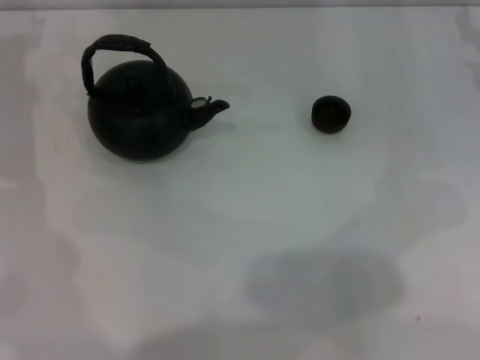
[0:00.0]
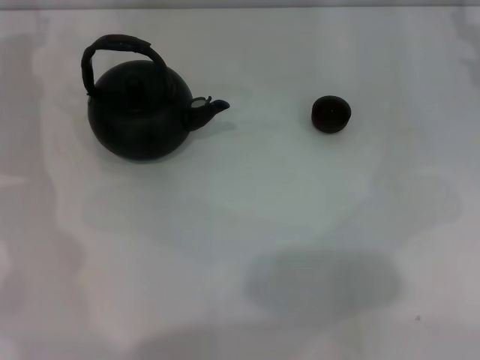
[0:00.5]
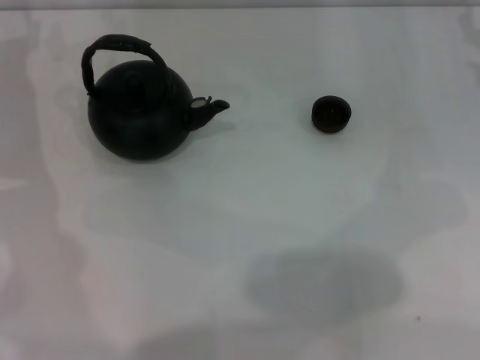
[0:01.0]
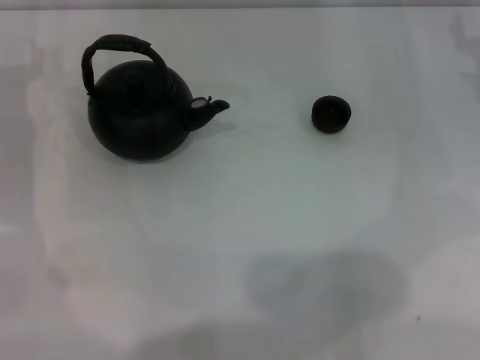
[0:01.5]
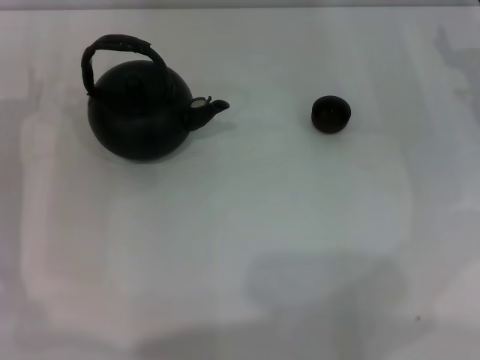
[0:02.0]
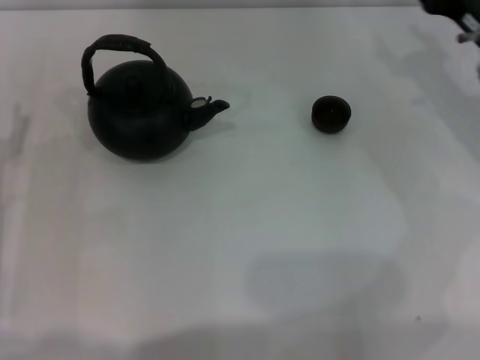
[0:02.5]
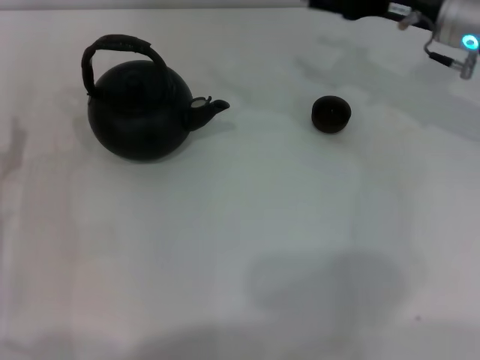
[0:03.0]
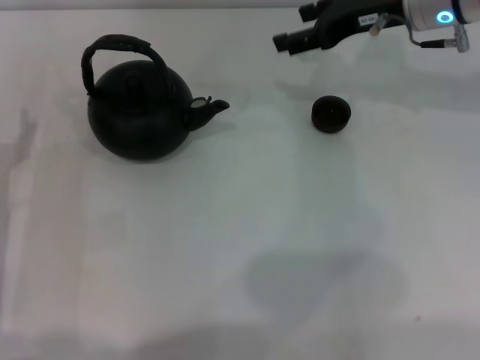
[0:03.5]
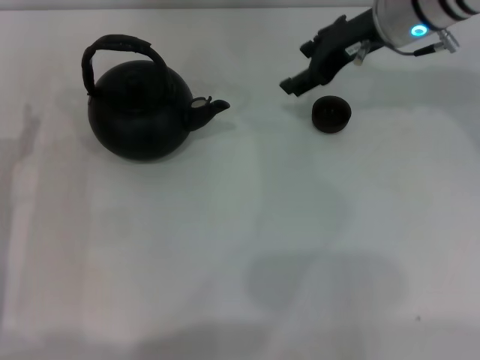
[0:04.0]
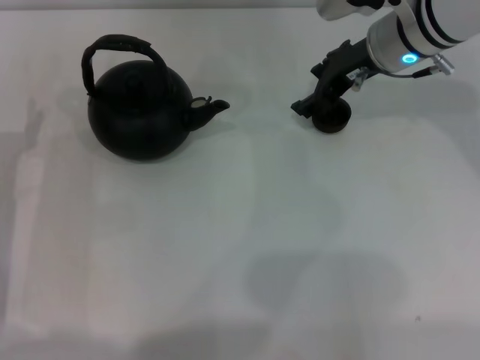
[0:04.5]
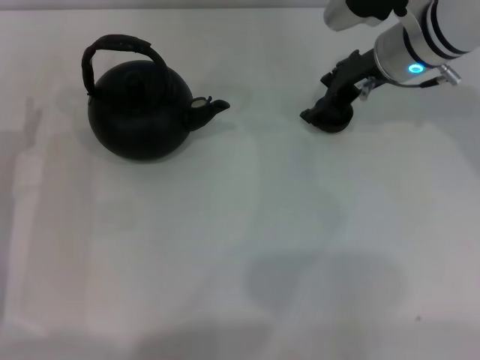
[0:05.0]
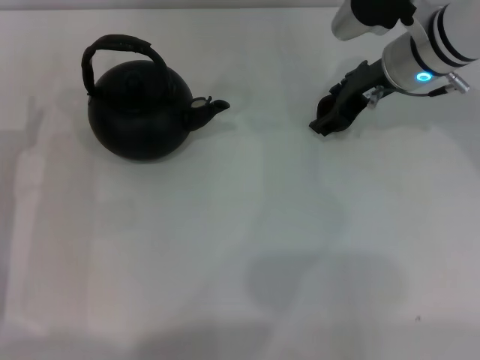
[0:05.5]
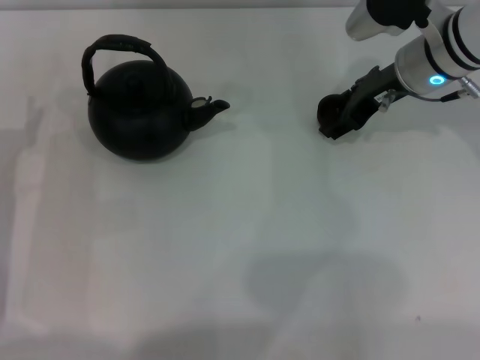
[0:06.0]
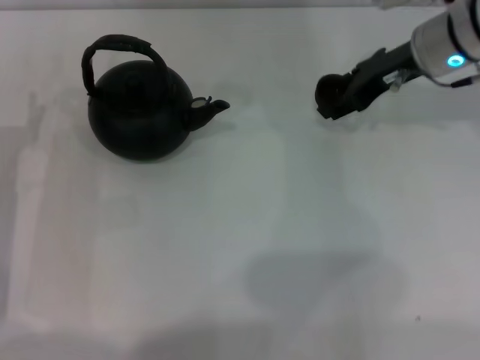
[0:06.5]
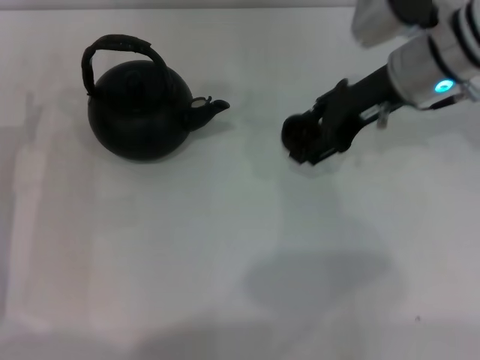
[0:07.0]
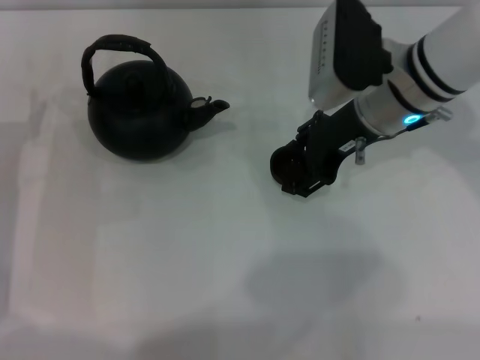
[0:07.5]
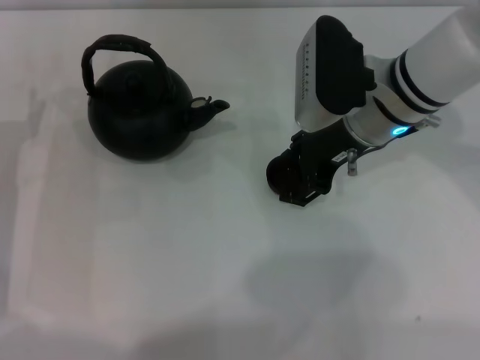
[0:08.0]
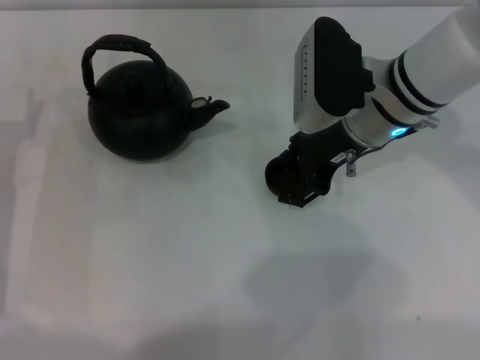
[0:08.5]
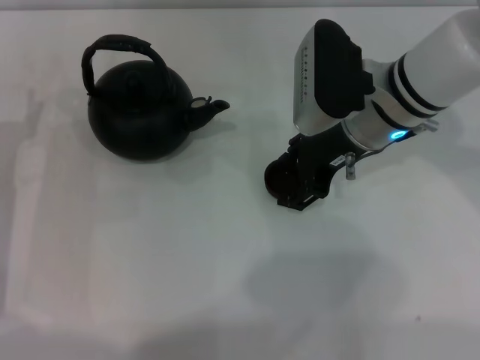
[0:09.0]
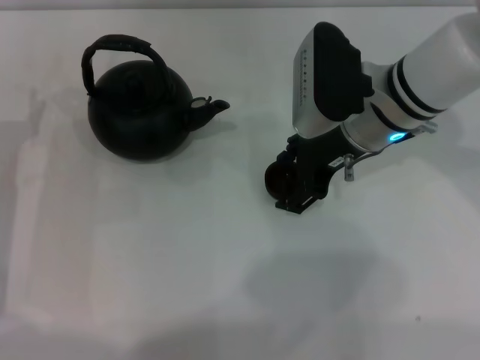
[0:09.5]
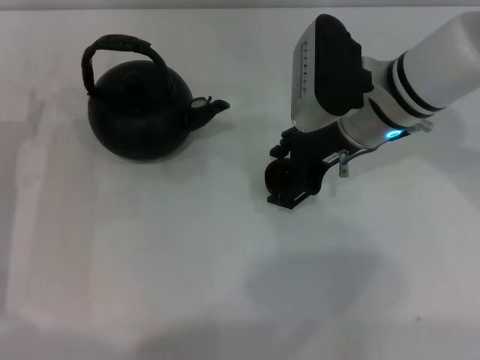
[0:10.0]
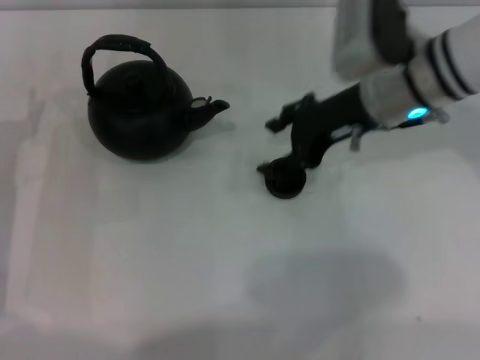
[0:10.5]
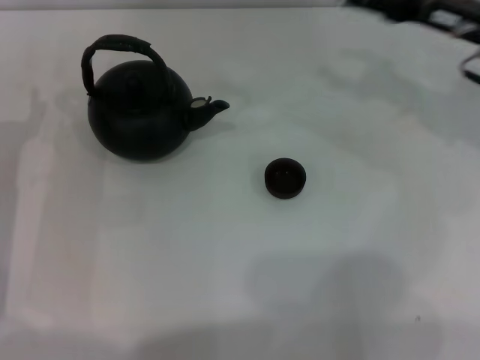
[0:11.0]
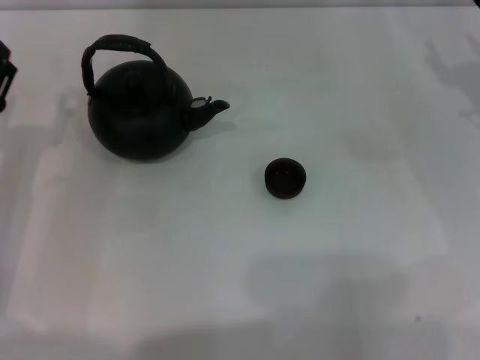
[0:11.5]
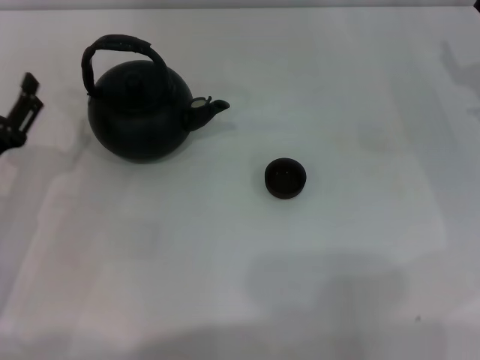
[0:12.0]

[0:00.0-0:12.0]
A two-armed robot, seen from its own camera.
Task of the whole recording: Grasp the handle of the teapot with one hand and pour tea into the teacup.
Step, 0:00.0 to 0:06.0: Pick up the teacup with the right gripper.
Step, 0:06.5 to 0:10.5: Place the teacup in the center of view with the right gripper.
0:02.0 to 0:04.0: The left gripper heads backward, covering roughly 5 cm; the right gripper shifts approximately 20 cm to the left, upward and forward.
0:04.0 to 0:06.0: The right gripper changes place by roughly 5 cm, and closes up.
0:06.0 to 0:08.0: The right gripper shifts some 10 cm to the left and backward.
0:08.0 to 0:10.0: The right gripper opens its fingers.
0:10.0 to 0:12.0: The right gripper travels to the right by about 20 cm.

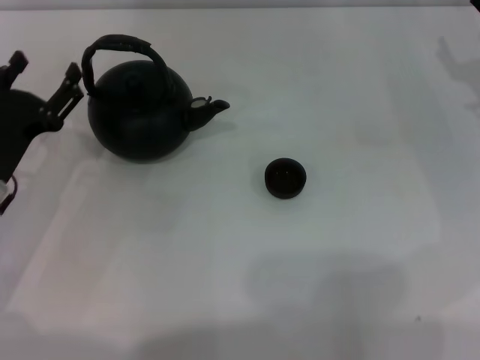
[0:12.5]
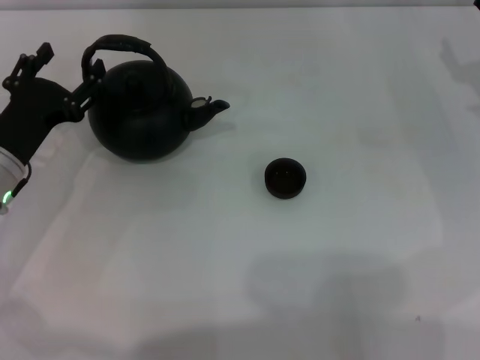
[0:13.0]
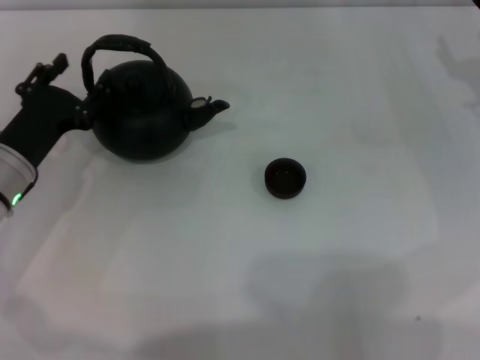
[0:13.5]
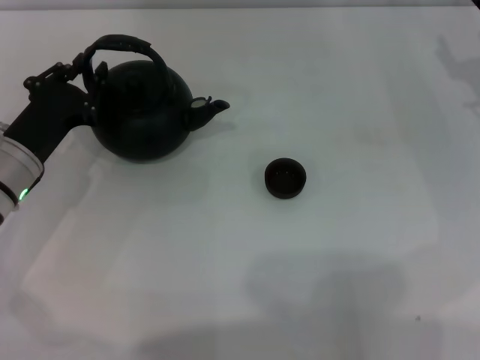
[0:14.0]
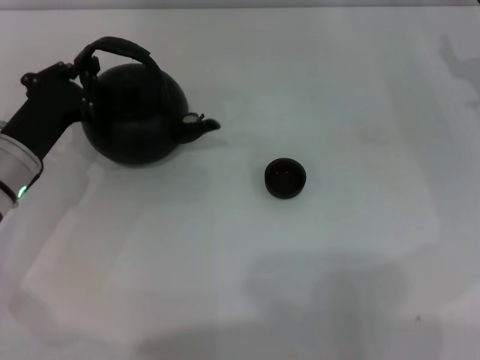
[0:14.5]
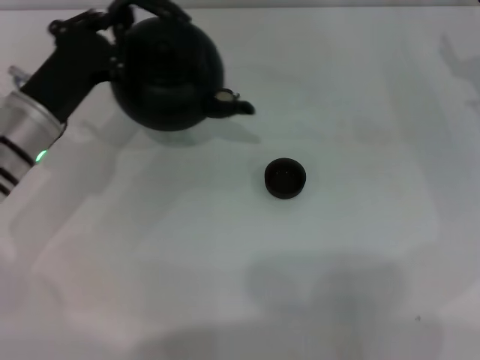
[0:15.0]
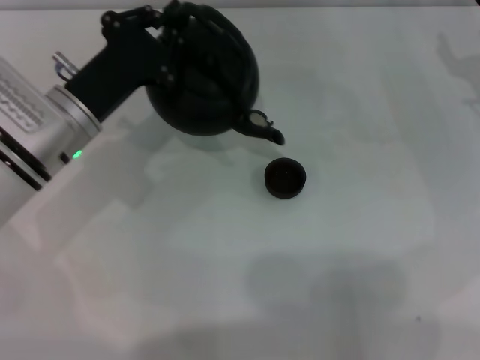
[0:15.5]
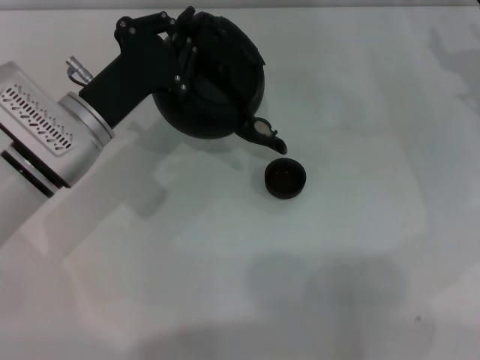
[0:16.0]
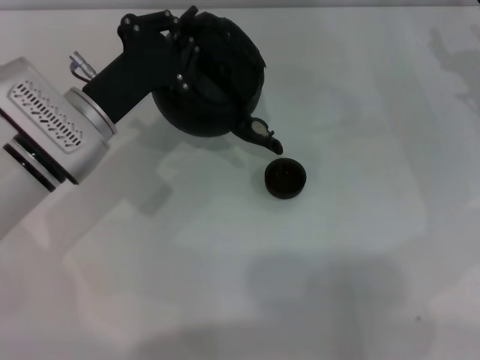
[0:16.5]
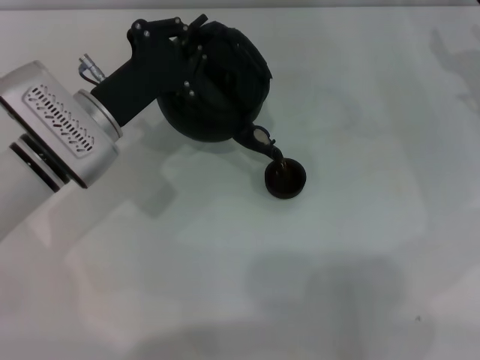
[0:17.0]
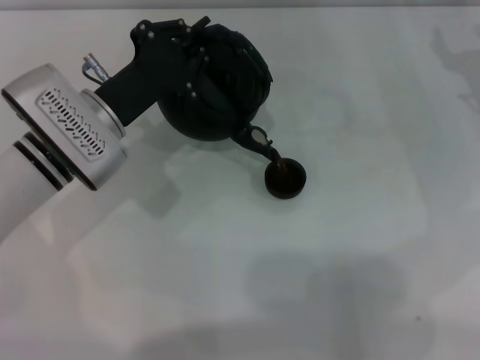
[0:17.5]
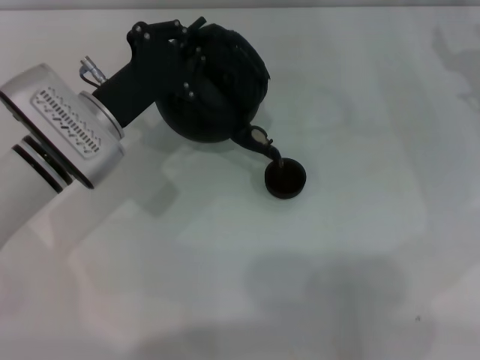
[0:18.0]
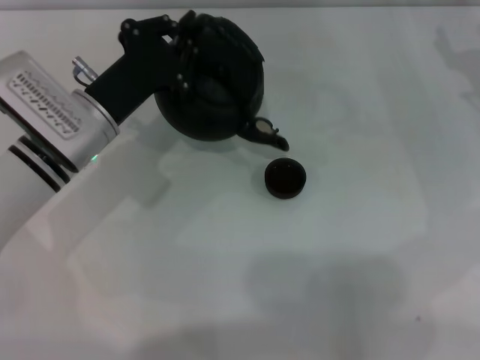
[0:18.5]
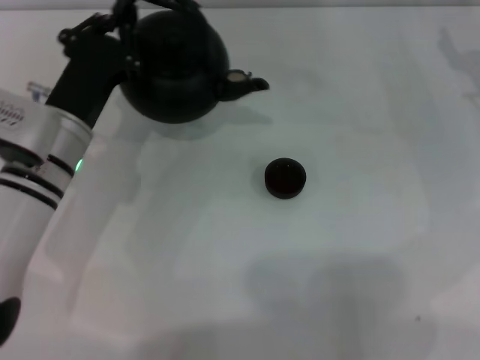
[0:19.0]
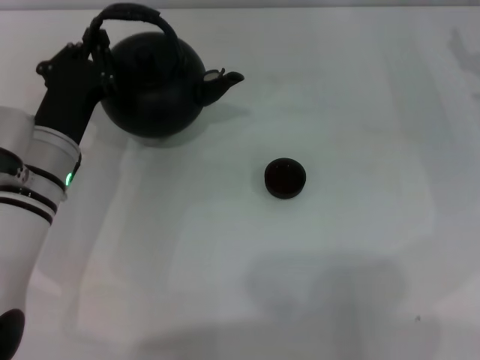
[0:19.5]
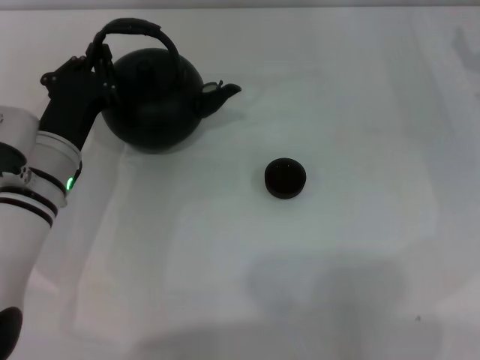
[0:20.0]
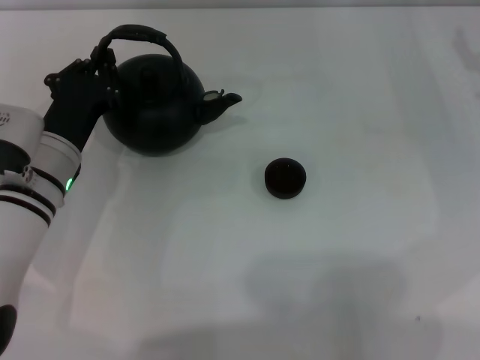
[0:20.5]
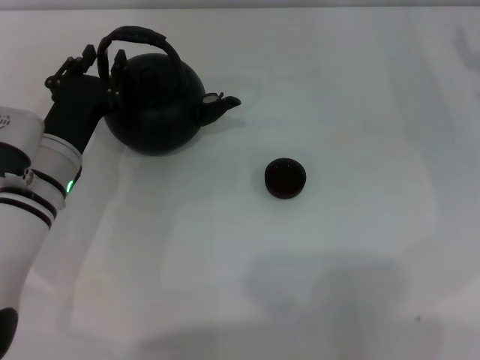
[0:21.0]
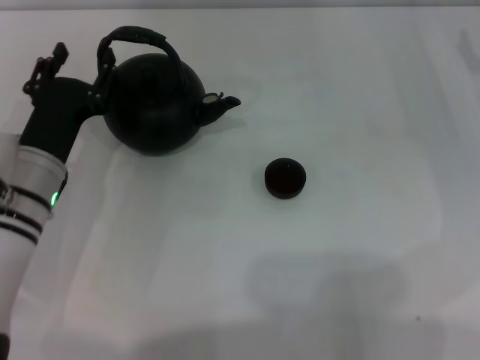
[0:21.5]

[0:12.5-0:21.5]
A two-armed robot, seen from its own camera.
Task of the whole recording: Grasp the handle of the teapot with one hand and pour tea into the teacup.
Step, 0:12.5 to 0:15.0: Pick up the teapot with the left gripper.
Step, 0:15.5 to 0:18.5: Pour tea into the teacup with the left gripper.
0:12.5 to 0:14.5: The left gripper closes.
0:14.5 to 0:17.0: The left gripper moves to the right, some 5 cm.
0:19.5 to 0:21.5: The left gripper opens up.

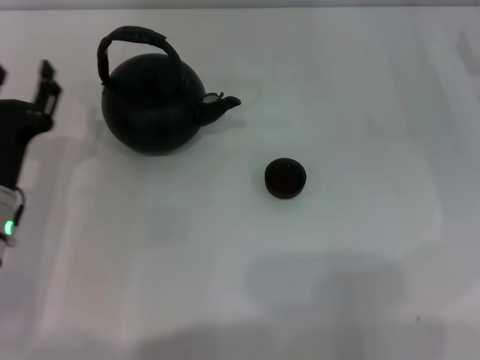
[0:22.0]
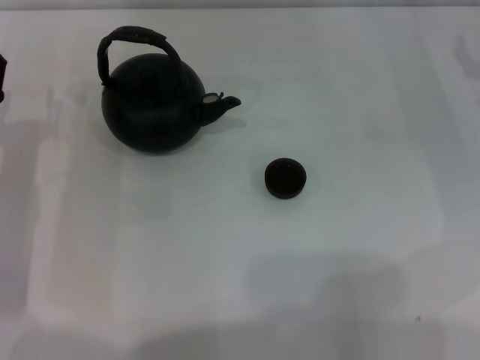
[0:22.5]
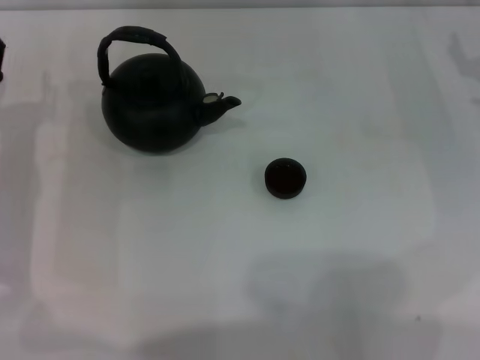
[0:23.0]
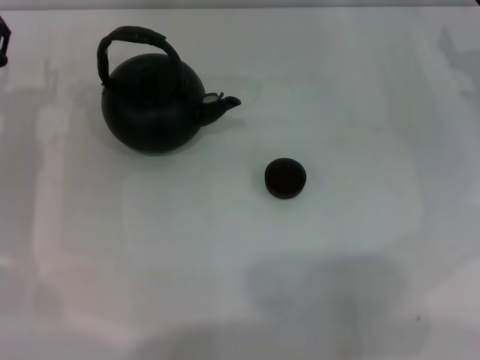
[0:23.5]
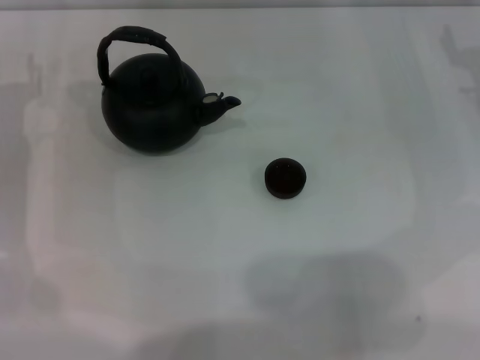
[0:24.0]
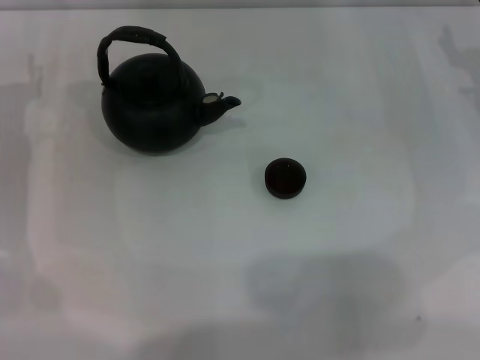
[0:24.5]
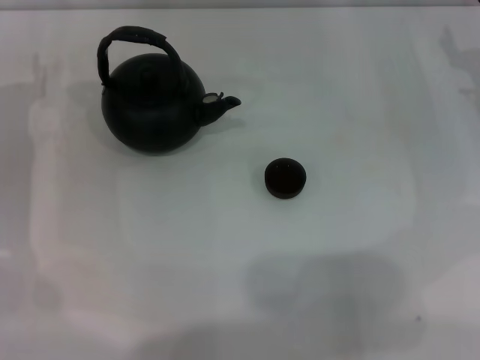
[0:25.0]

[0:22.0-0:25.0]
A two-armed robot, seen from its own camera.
Task of the whole recording: Grasp the handle of the teapot with one hand and pour tea into the teacup.
0:22.0 to 0:23.5: The left gripper is displaced forward by about 10 cm.

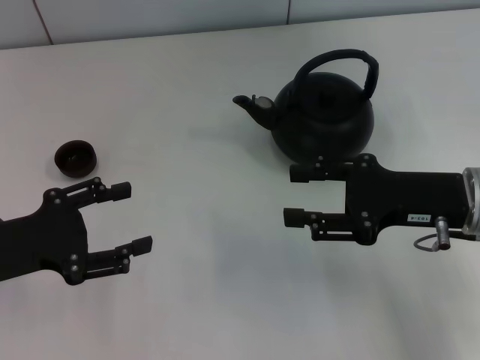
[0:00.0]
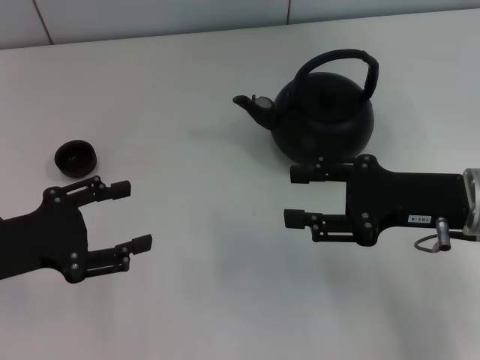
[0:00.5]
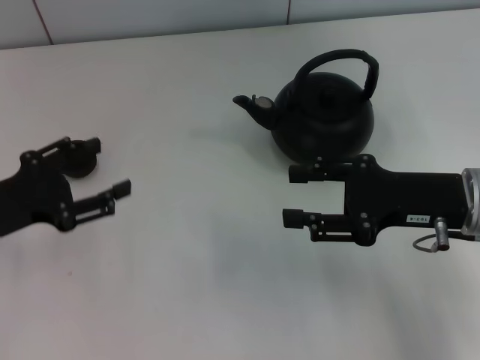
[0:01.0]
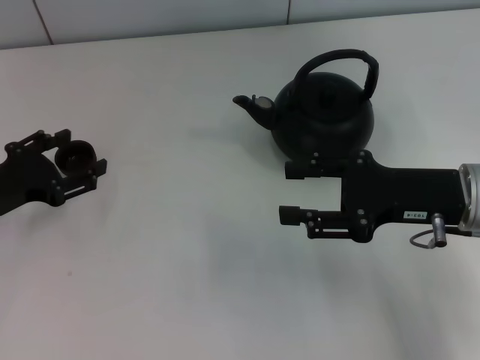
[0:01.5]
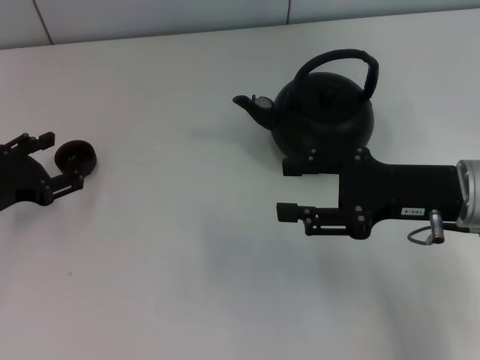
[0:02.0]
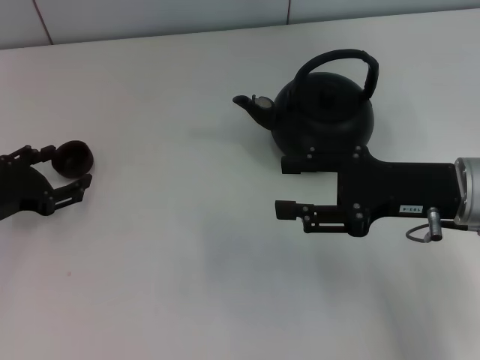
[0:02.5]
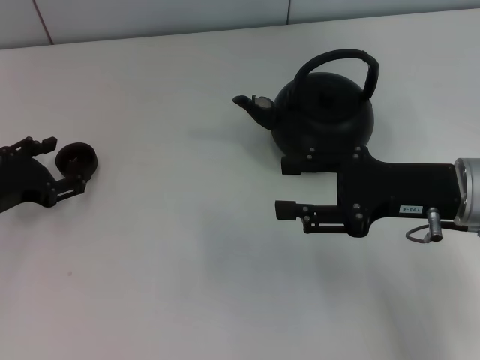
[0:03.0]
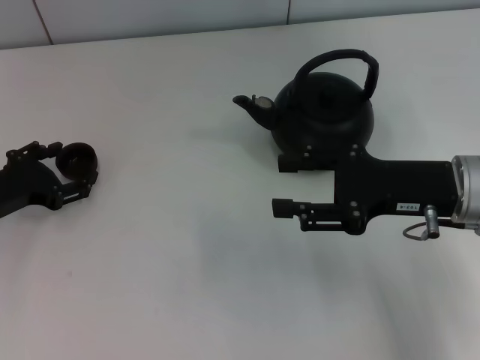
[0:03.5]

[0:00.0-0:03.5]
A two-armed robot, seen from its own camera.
Task of the whole recording: Grasp the handle of the teapot with one hand and pour tea into the teacup.
0:00.0 to 0:02.0: The left gripper moves forward, some 5 cm.
0:02.0 to 0:03.5: The grippers stay close to where they were, moving slightly.
